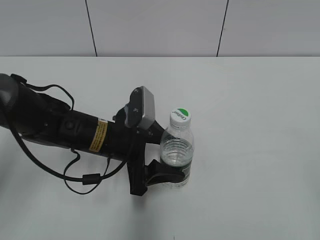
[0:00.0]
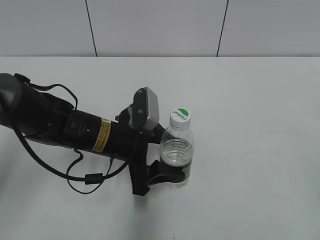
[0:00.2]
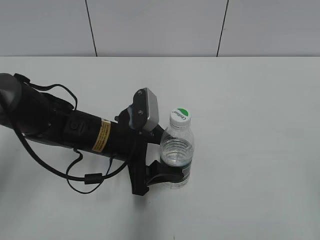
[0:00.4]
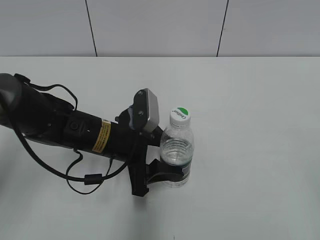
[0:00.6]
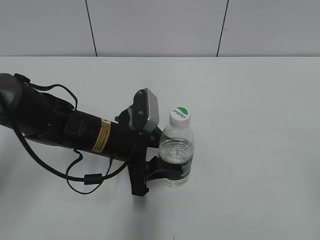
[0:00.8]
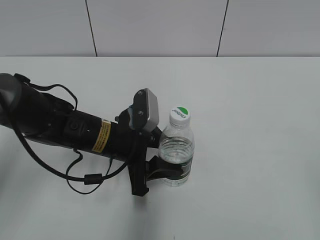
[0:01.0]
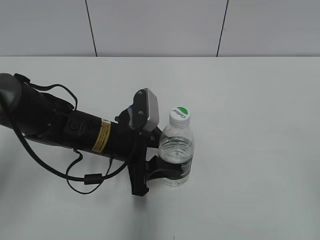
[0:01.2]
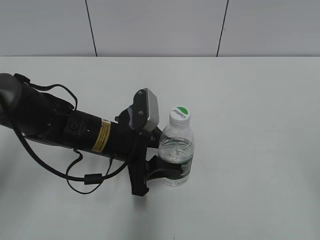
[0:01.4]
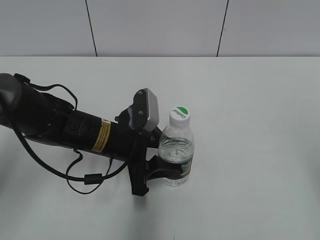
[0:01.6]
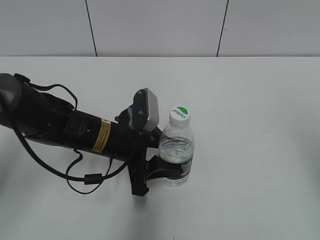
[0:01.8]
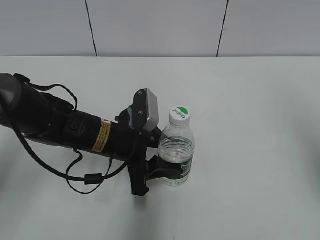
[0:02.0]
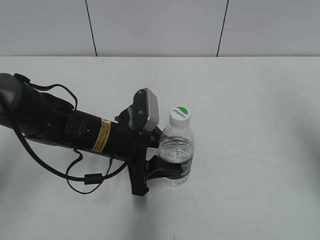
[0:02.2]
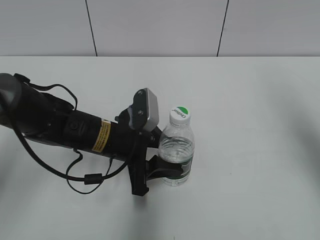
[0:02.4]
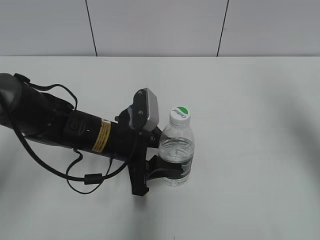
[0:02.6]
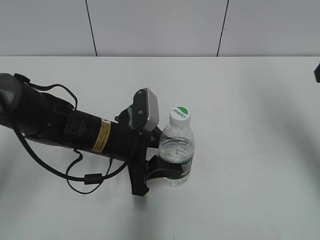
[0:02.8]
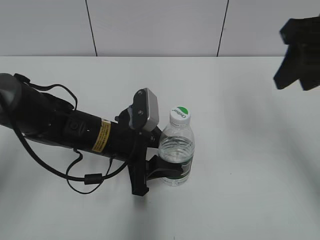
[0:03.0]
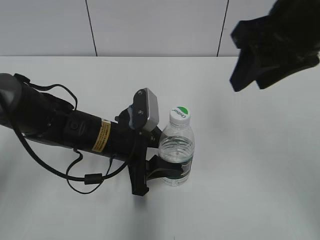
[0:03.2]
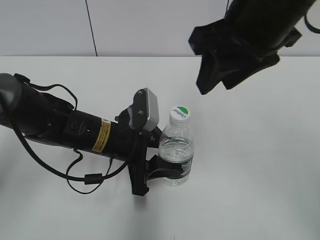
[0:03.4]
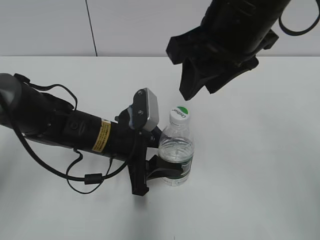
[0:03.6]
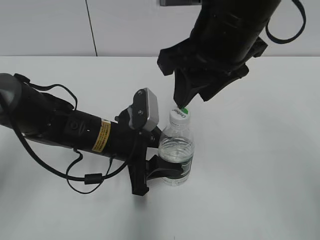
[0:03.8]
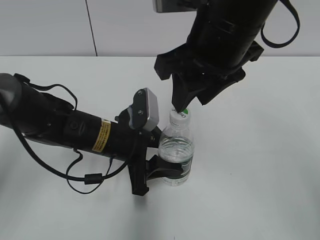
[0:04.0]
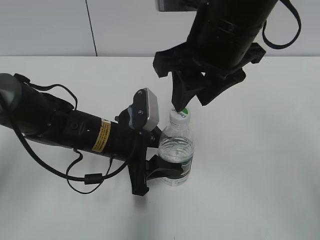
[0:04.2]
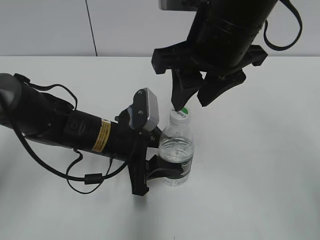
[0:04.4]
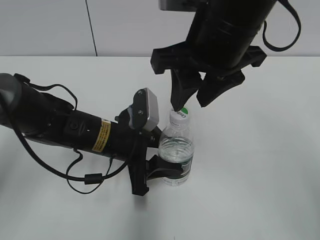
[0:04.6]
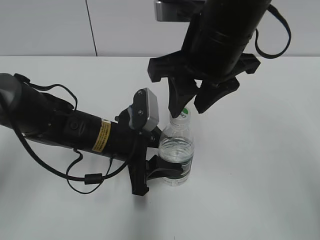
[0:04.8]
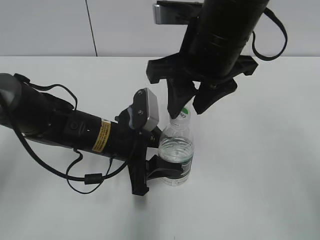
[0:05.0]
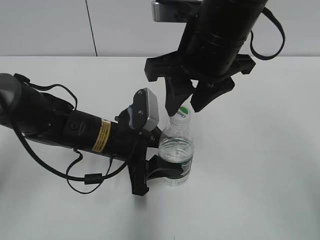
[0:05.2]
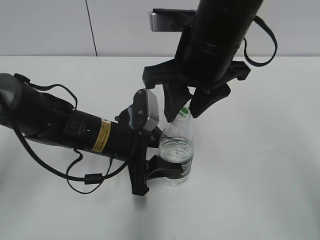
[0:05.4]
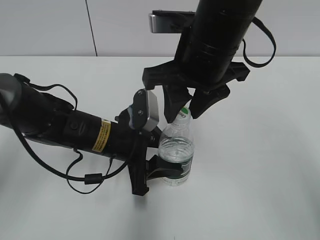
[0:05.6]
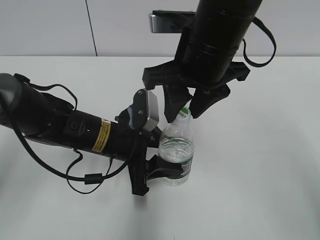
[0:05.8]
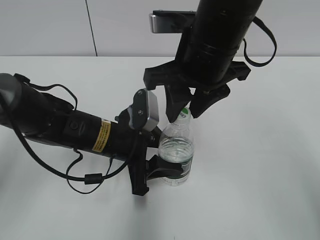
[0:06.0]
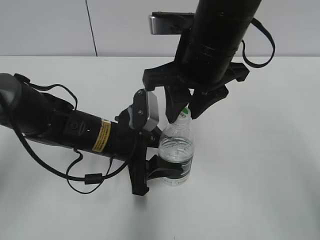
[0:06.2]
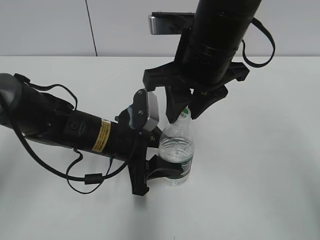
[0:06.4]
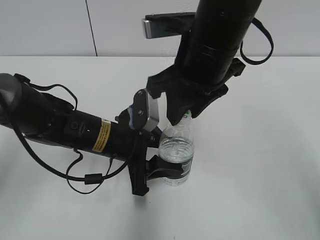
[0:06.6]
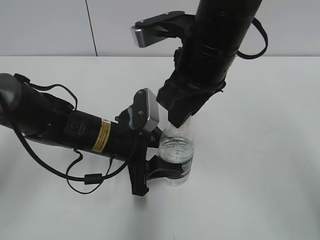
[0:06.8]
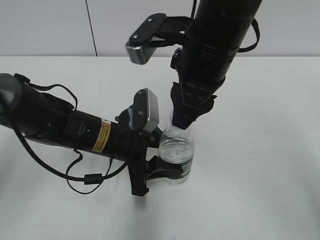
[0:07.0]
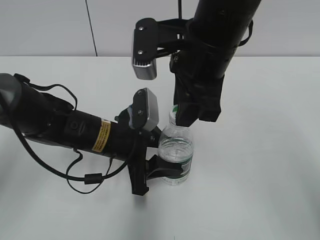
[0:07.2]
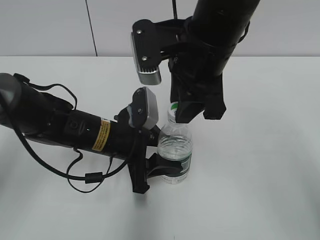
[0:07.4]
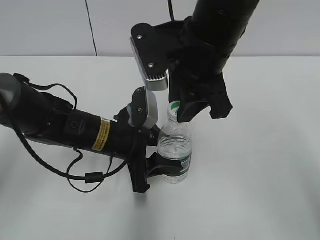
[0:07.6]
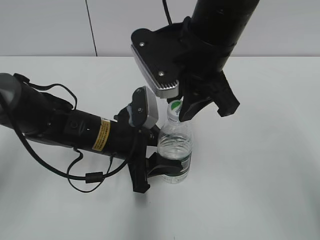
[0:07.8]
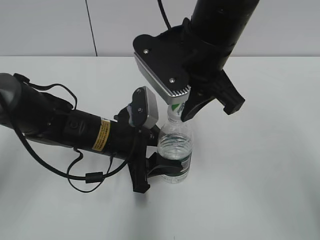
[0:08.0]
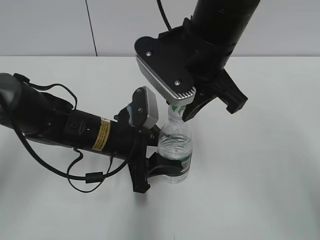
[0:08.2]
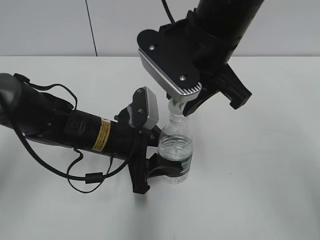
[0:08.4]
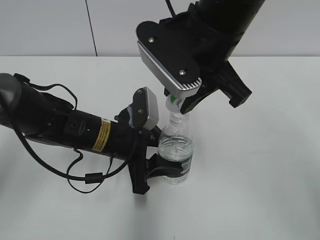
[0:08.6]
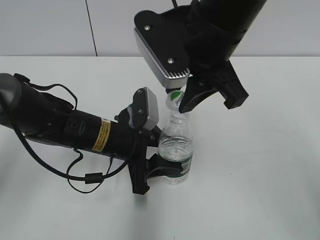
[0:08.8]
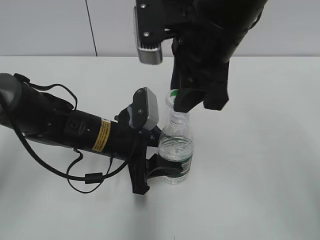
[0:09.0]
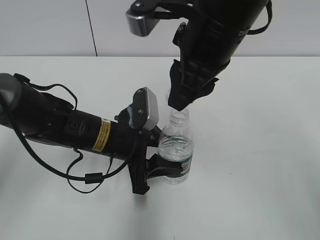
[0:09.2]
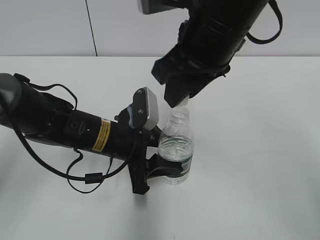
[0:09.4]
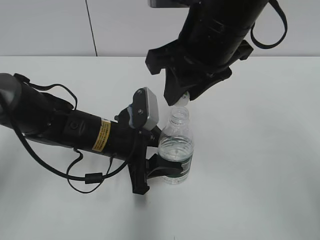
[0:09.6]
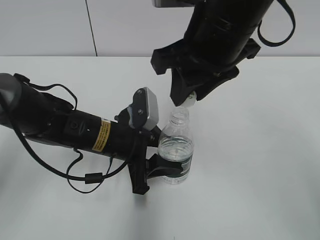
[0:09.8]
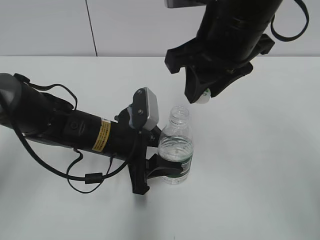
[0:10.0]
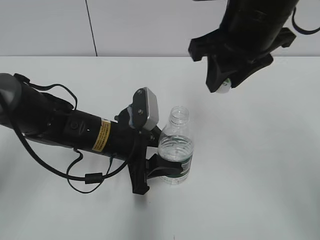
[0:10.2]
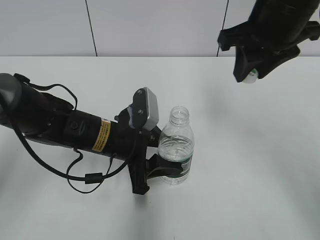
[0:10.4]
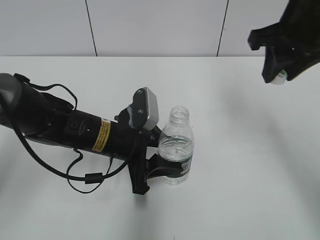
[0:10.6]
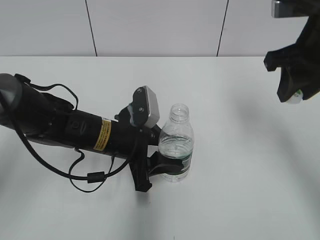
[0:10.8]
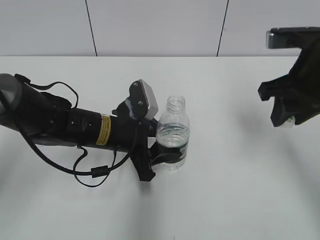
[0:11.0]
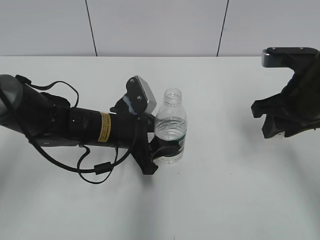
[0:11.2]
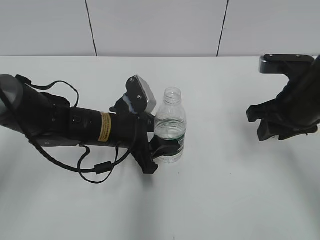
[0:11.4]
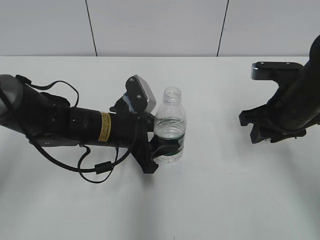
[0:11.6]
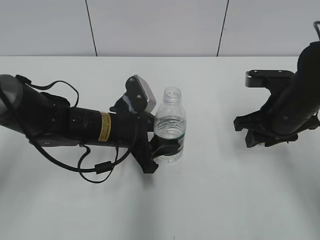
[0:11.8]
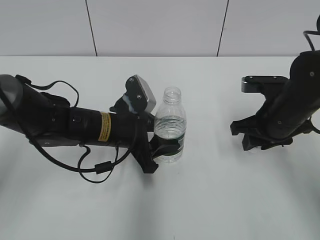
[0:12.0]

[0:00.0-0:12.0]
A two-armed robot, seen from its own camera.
Step, 0:01.6 to 0:09.0: Unscrew the bottle cap with the right gripper while holding the bottle with the left gripper.
0:00.0 to 0:01.6: The right gripper travels forward and upward by some 10 cm; the left gripper closes its fingers.
0:01.6 to 0:03.0: The right gripper shifts roughly 25 cm forward and to the left, and closes.
0:03.0 to 0:04.4: The right gripper shifts approximately 15 cm to the left.
0:04.4 to 0:06.0: The grippers make only small movements.
0:09.0 to 0:10.4: The right gripper moves to the right, approximately 10 cm.
0:10.4 to 0:12.0: The right gripper heads downward, covering approximately 15 cm.

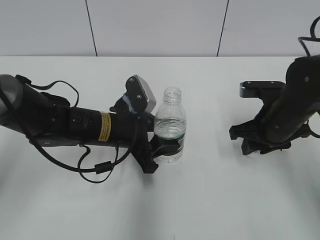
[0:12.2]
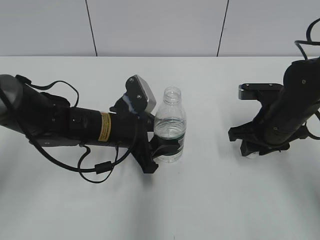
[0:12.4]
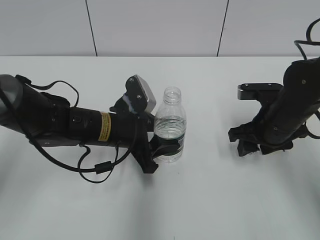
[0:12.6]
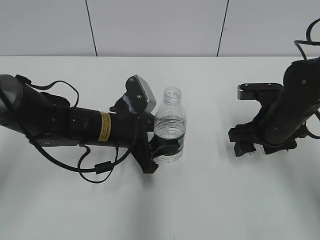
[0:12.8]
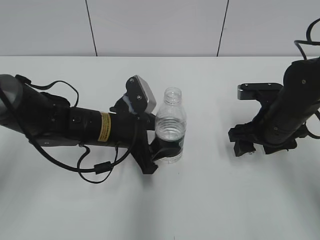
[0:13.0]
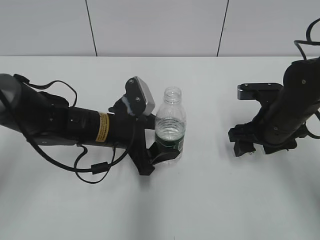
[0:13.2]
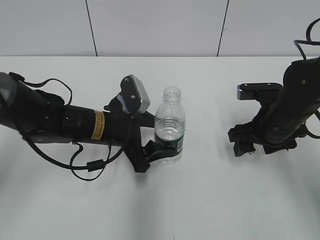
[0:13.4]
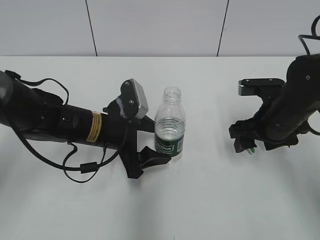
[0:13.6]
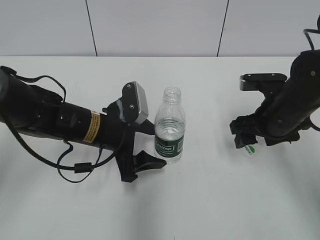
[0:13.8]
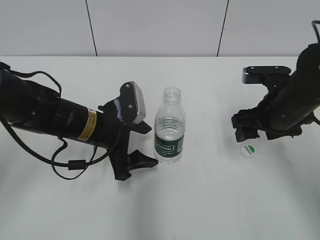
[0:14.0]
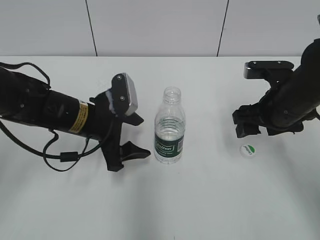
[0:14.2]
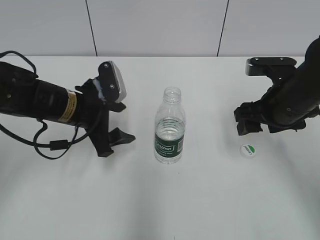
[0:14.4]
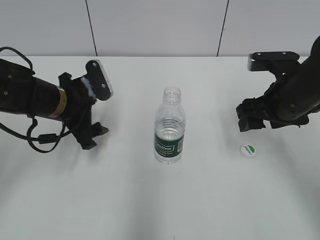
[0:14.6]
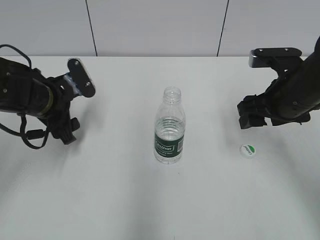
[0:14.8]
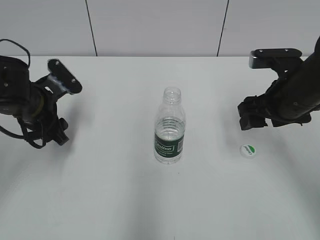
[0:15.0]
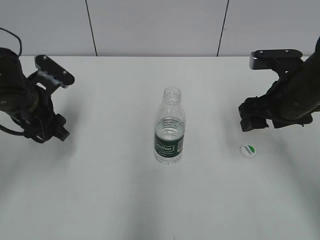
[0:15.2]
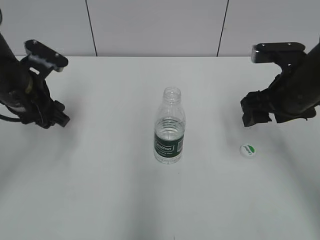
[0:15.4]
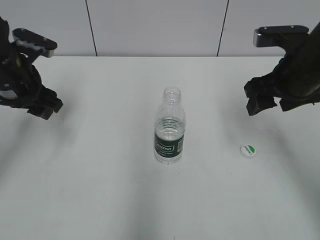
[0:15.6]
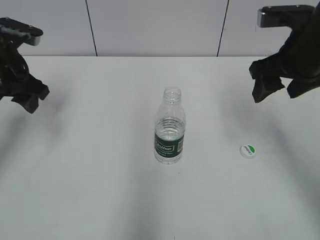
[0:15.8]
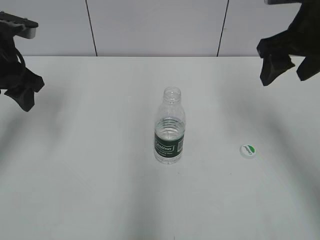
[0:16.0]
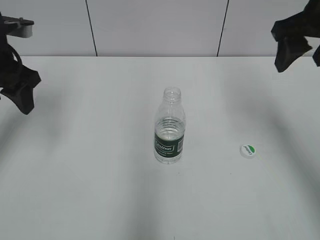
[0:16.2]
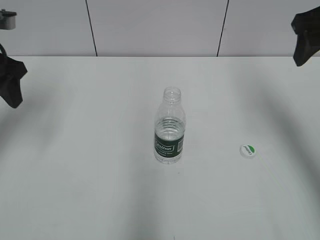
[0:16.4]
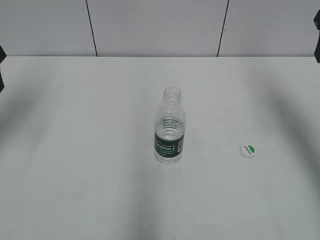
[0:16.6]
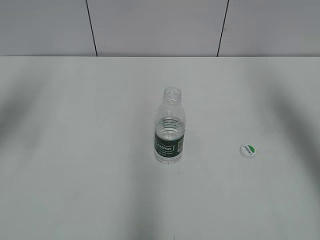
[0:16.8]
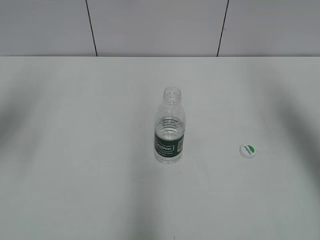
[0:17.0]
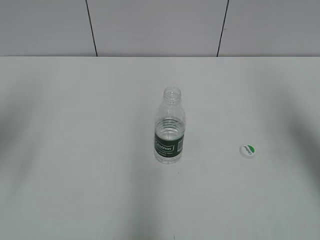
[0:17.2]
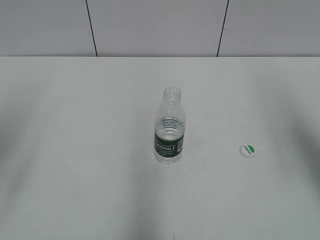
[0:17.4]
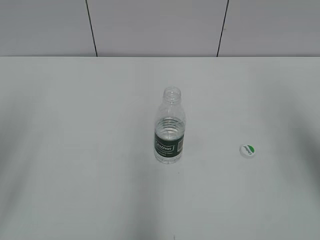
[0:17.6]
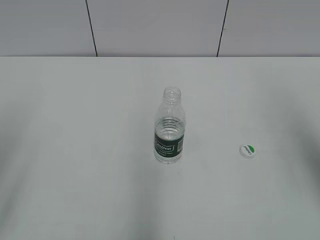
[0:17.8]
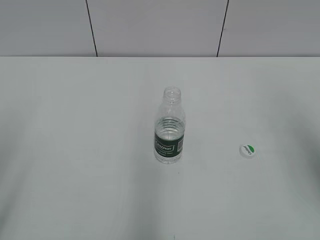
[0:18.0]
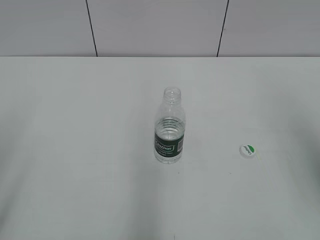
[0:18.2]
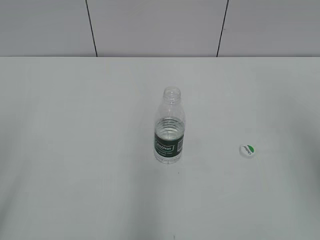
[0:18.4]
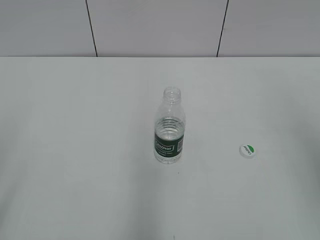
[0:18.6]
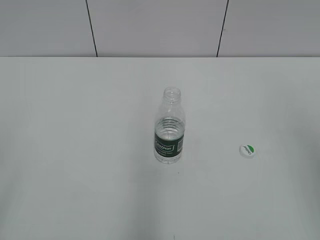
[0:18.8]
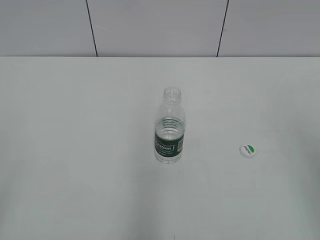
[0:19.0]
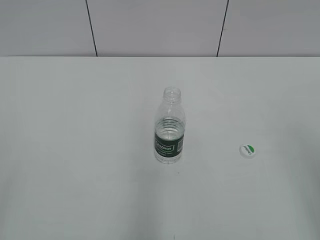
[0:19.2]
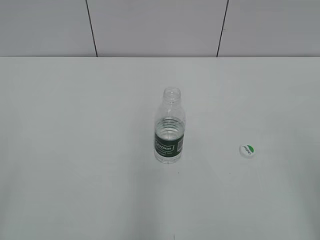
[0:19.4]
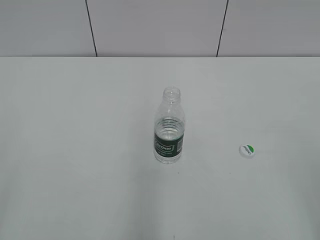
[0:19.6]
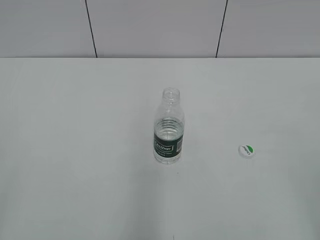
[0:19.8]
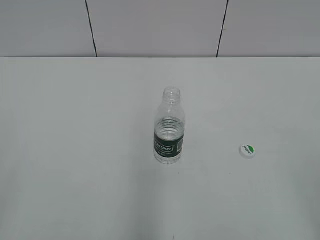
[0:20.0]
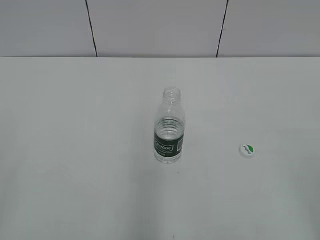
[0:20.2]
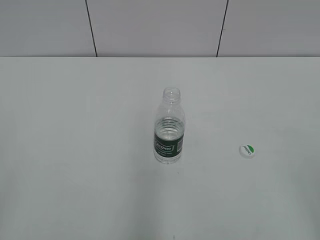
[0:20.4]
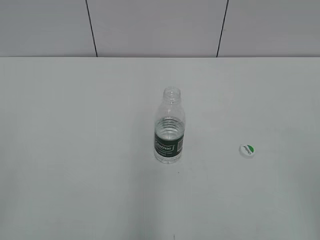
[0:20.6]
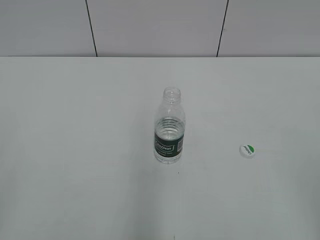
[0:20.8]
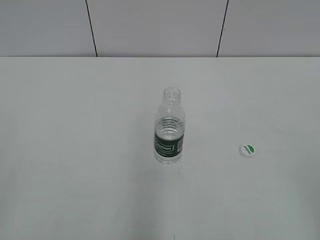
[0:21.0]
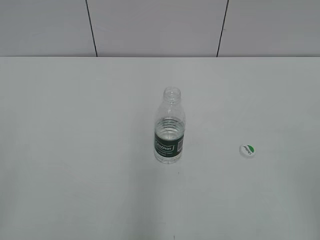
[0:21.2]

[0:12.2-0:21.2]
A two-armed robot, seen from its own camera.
Step, 0:13.2 to 0:14.0: Place the bottle on the table with the left gripper.
0:12.2 to 0:13.8: The right gripper opens up. Meanwhile the left gripper opens up.
0:13.8 to 0:15.2: The left gripper shifts about 10 cm to the left.
0:15.2 to 0:16.6: The left gripper moves upward and to the left, about 15 cm. The right gripper travels upward and to the right by some 15 cm.
0:16.6 to 0:18.2: Both grippers travel together backward, some 20 cm.
0:18.2 to 0:19.8: The right gripper moves backward and downward, about 15 cm.

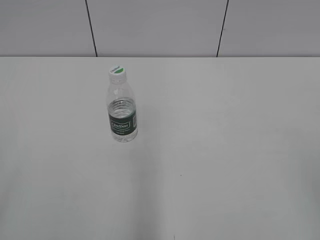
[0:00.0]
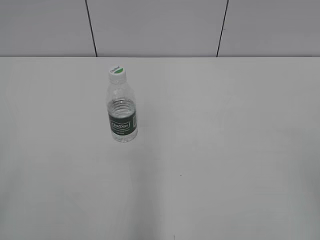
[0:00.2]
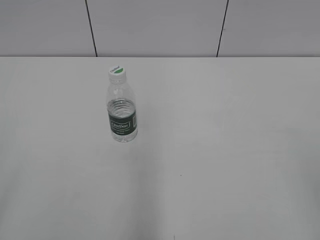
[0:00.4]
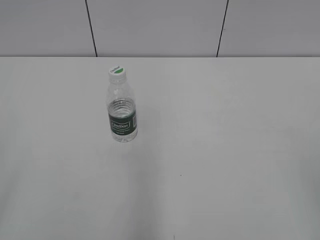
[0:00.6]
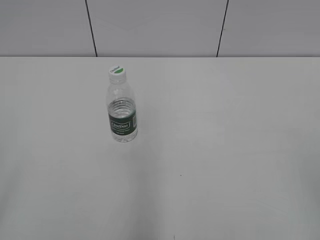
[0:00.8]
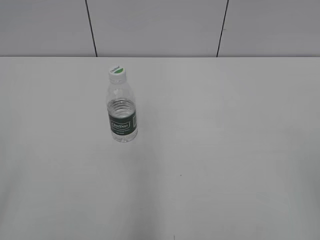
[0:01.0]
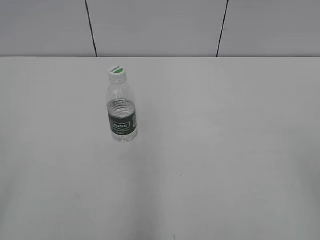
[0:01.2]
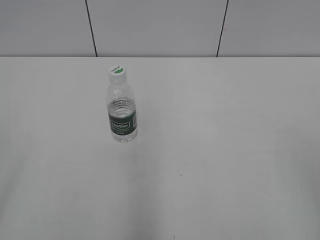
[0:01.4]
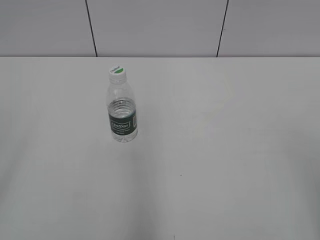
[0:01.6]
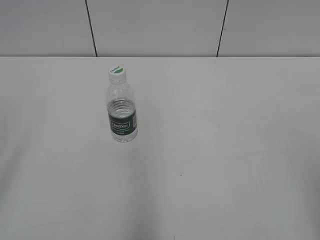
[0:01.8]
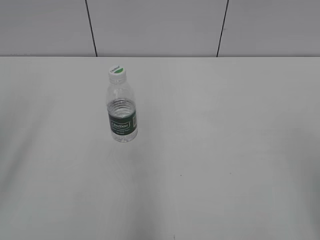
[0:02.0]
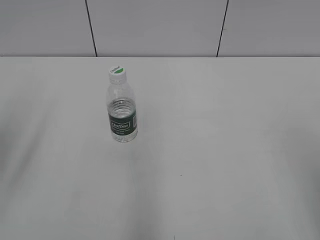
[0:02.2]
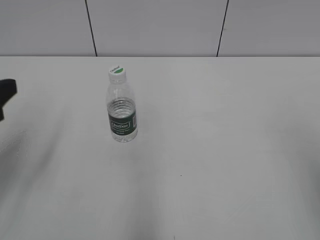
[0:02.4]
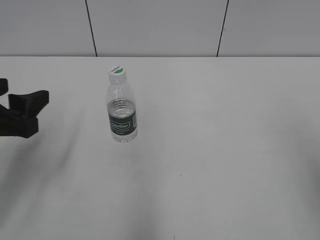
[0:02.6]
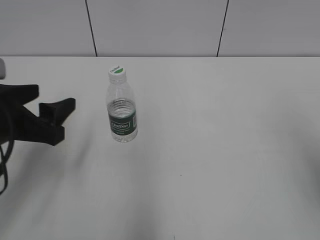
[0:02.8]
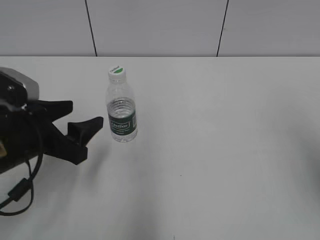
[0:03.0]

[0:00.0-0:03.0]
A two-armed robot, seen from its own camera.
0:01.6 to 0:03.0: The left gripper shifts approximately 30 cm forward, downward and to the right.
